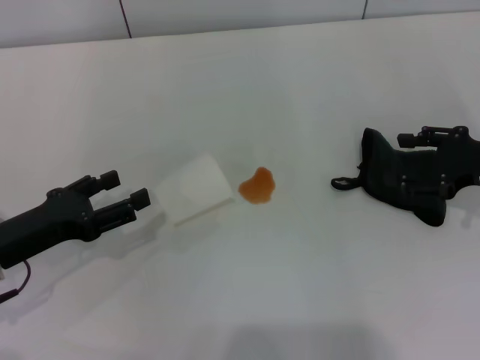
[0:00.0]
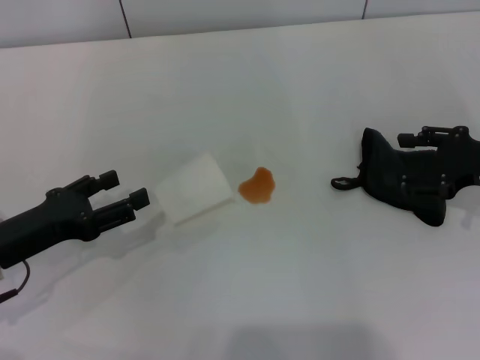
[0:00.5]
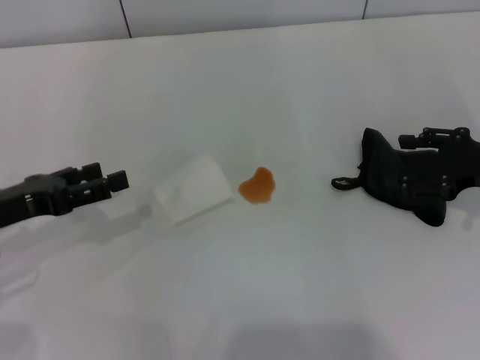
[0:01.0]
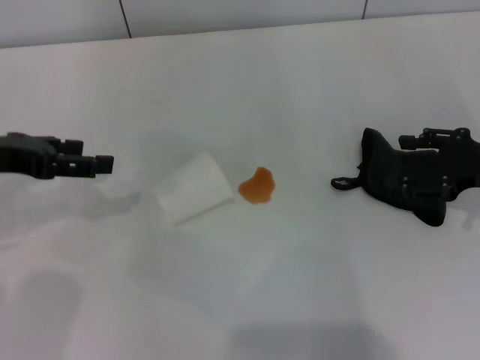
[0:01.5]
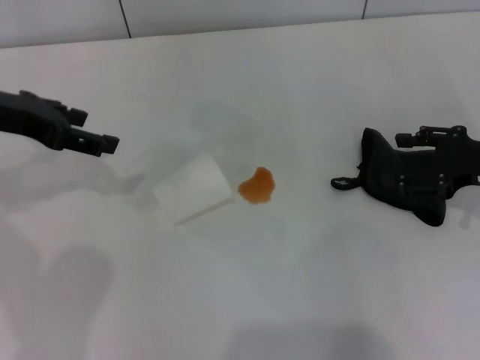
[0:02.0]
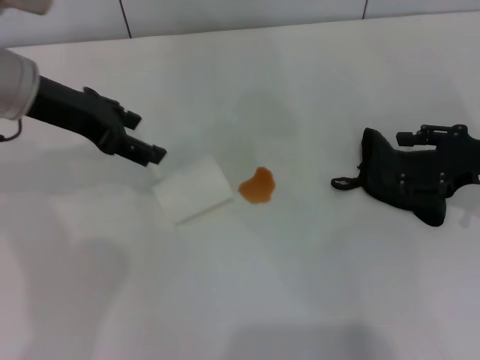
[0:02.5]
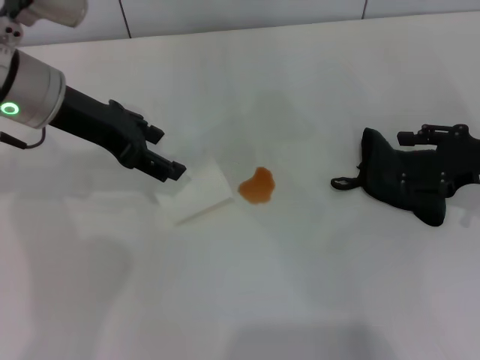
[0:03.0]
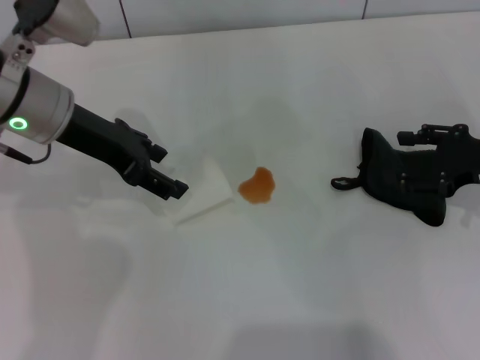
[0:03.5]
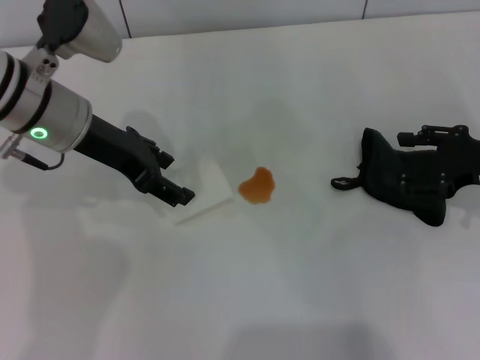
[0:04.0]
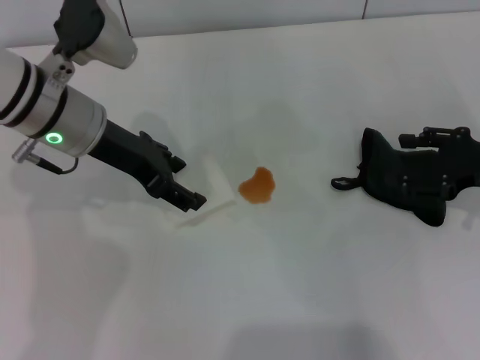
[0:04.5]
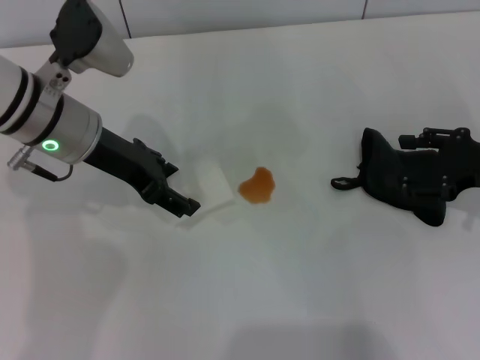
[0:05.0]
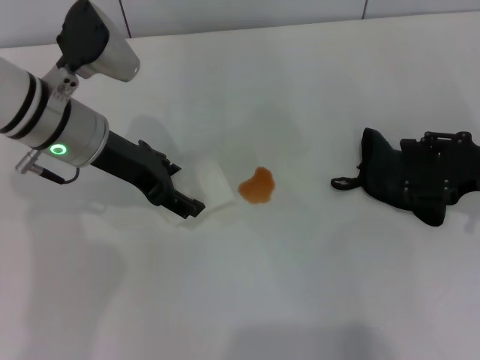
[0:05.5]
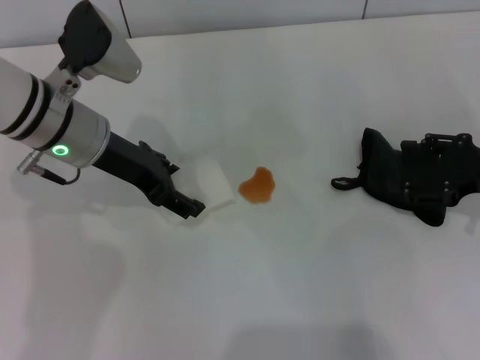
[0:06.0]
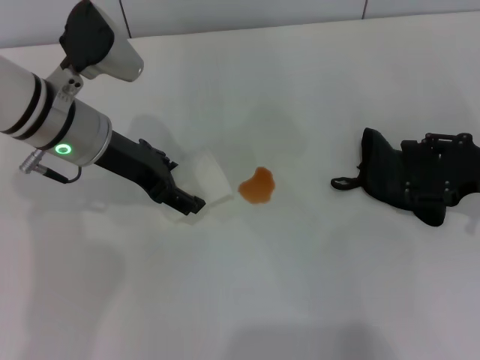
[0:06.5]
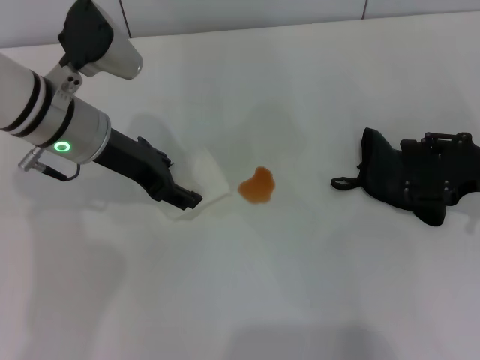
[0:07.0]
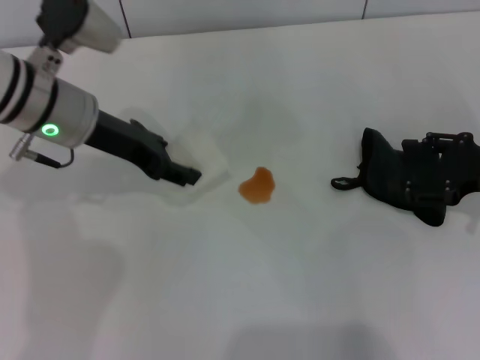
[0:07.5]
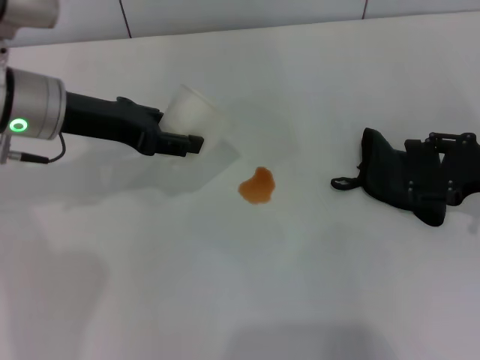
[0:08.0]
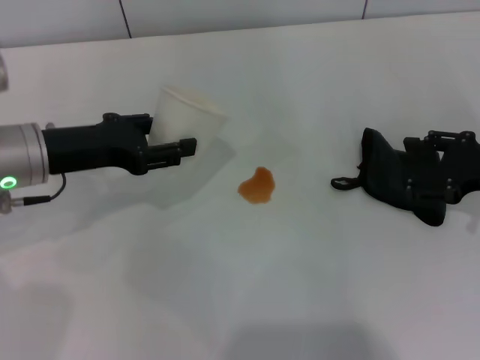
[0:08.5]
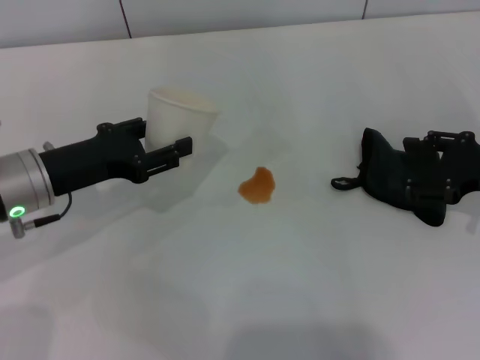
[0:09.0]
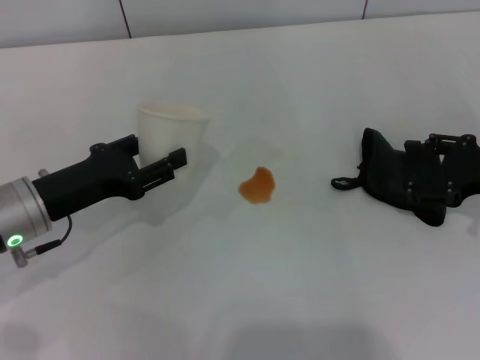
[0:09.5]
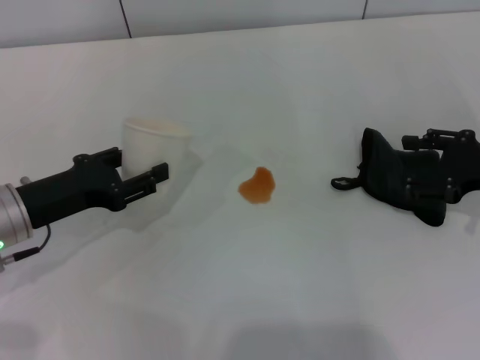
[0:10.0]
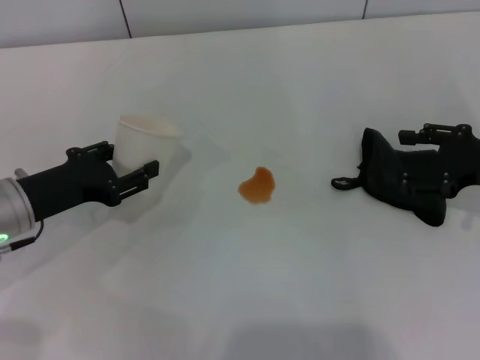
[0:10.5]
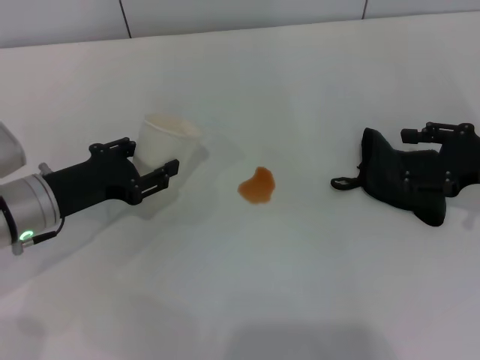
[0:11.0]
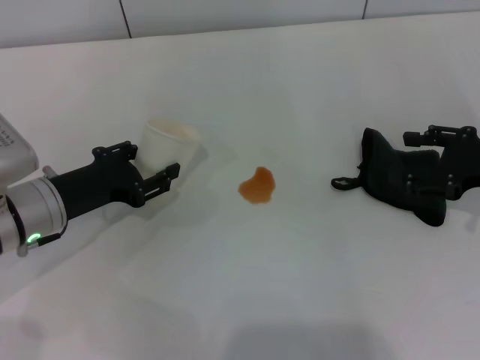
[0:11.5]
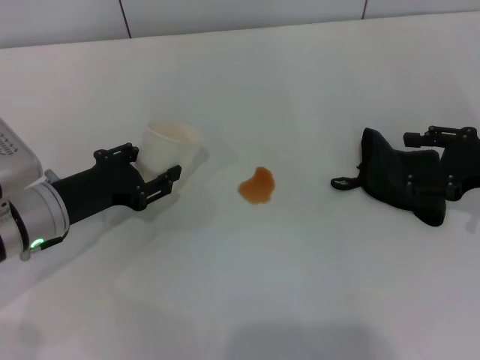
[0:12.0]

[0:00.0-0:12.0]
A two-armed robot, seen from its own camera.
Step, 0:00.0 to 0:07.0: Grasp the paper cup with the left gripper.
0:00.0 to 0:02.0: The left gripper shifts some 20 cm upward and forward.
0:02.0 to 0:04.0: The left gripper heads to the right, covering roughly 10 cm.
0:04.0 to 0:06.0: The grippers move only a little.
0:06.0 to 0:08.0: The left gripper closes up.
0:08.0 to 0:10.0: The left gripper moves downward, backward and to the left, roughly 15 cm.
0:10.0 to 0:12.0: The grippers make only small movements.

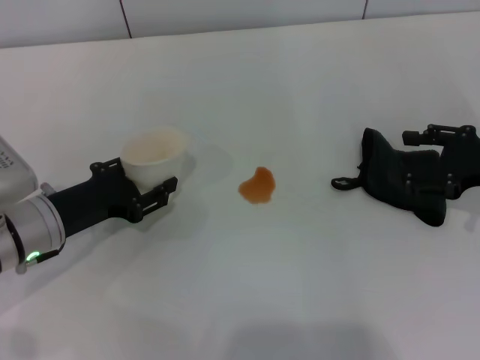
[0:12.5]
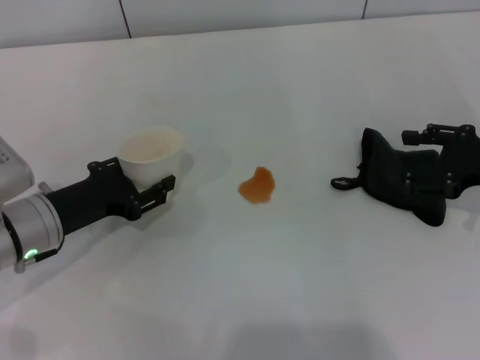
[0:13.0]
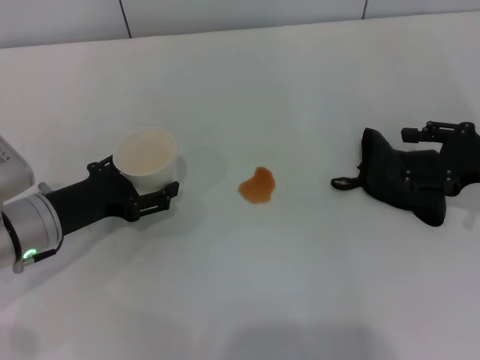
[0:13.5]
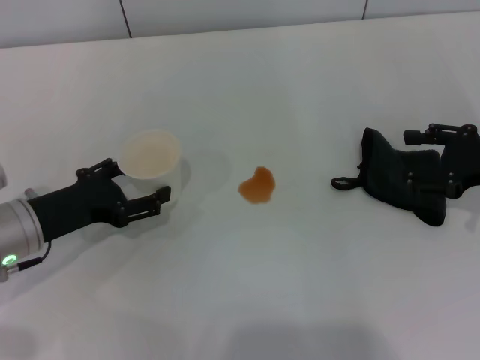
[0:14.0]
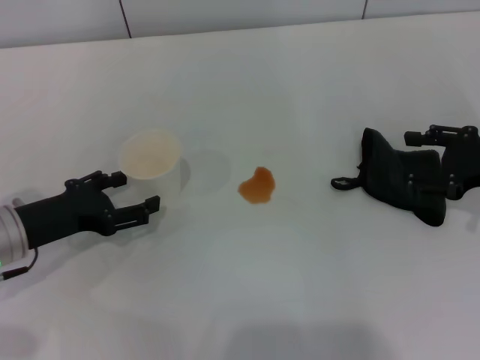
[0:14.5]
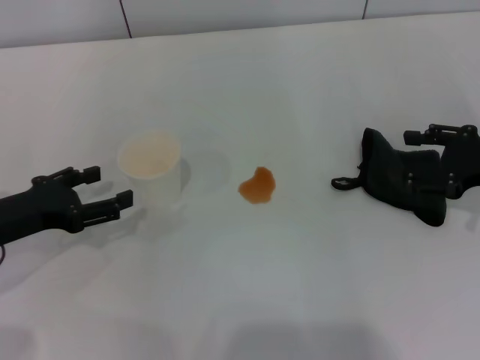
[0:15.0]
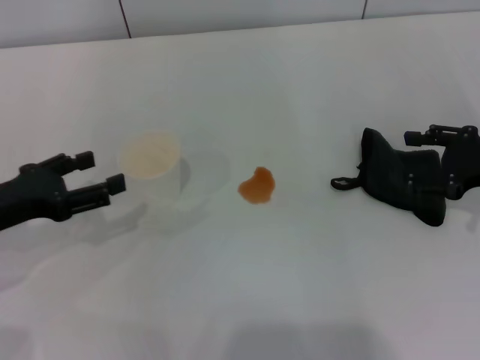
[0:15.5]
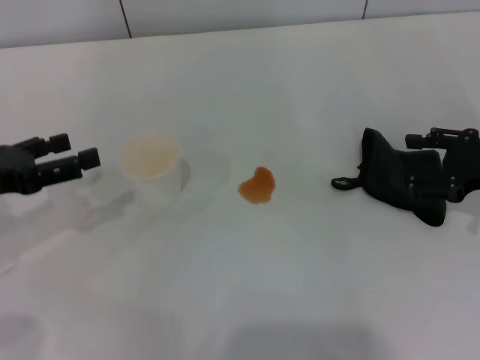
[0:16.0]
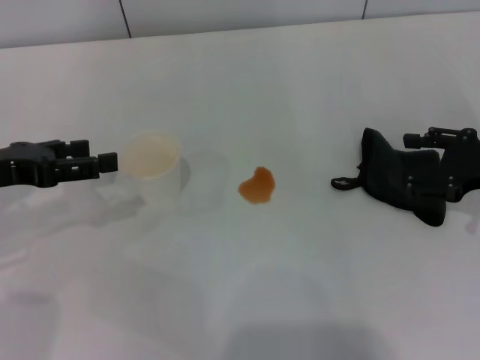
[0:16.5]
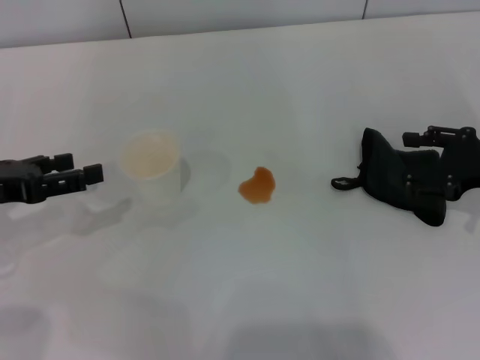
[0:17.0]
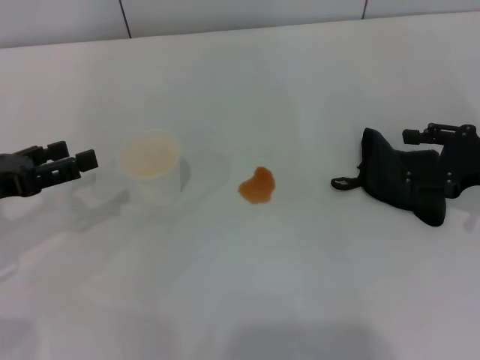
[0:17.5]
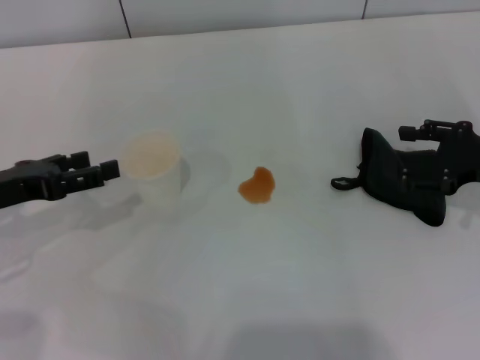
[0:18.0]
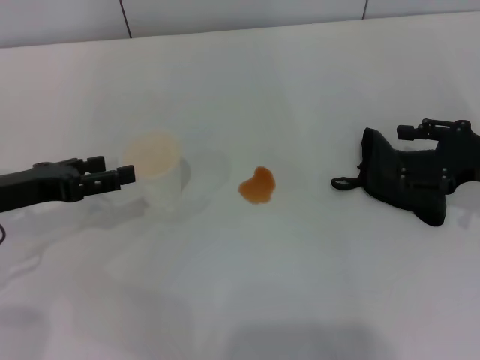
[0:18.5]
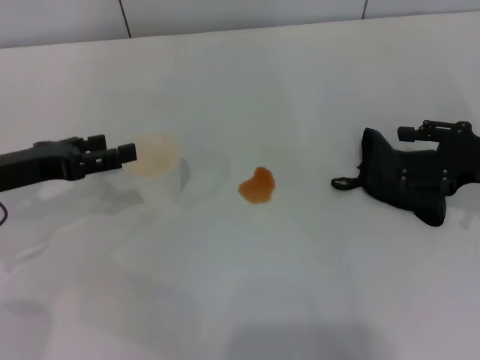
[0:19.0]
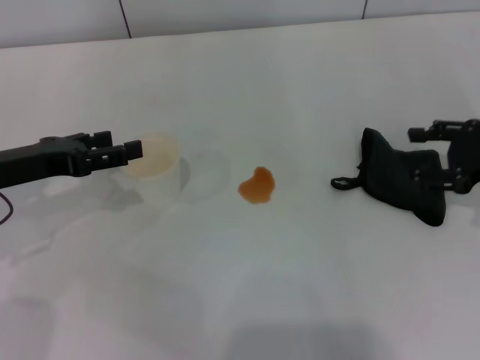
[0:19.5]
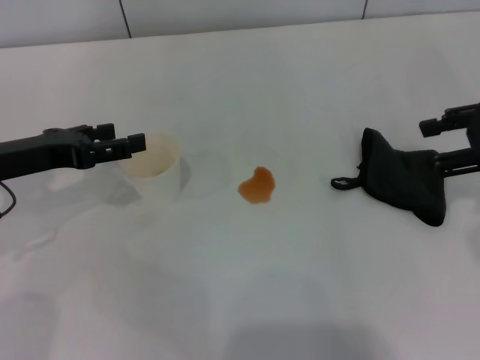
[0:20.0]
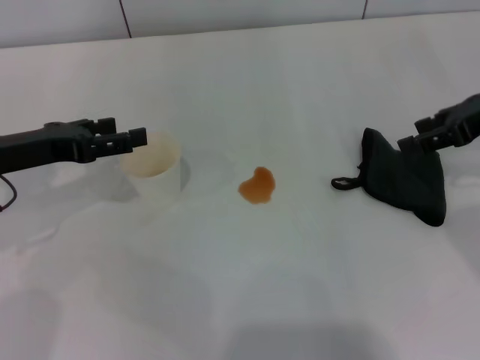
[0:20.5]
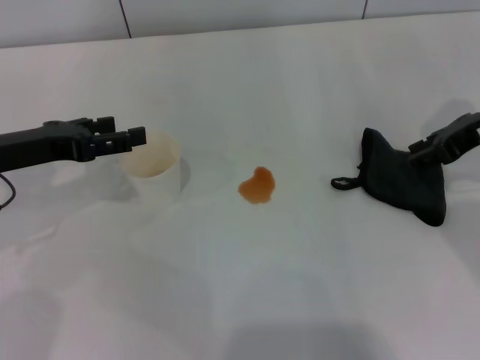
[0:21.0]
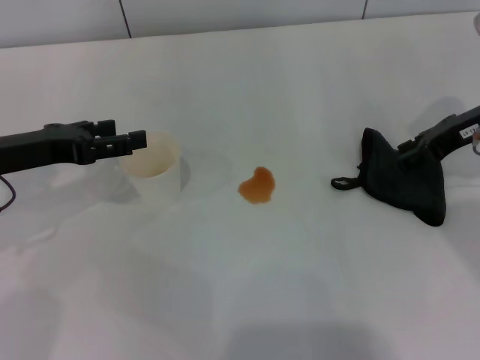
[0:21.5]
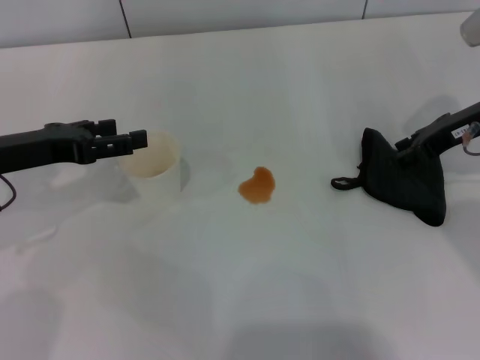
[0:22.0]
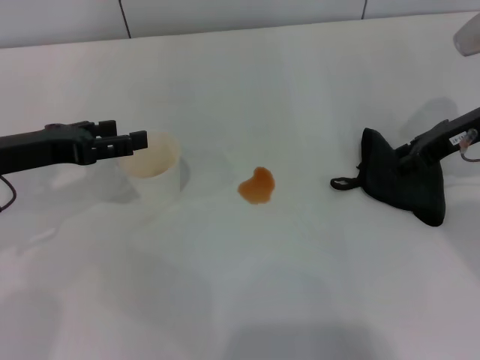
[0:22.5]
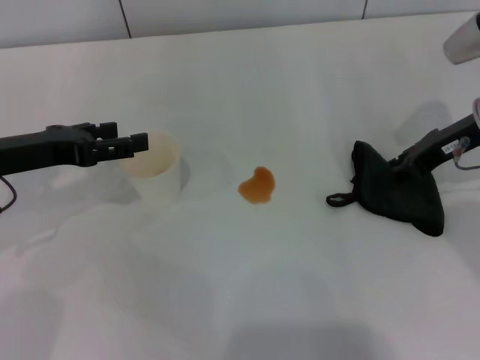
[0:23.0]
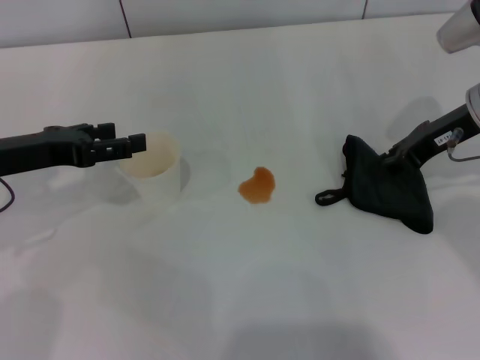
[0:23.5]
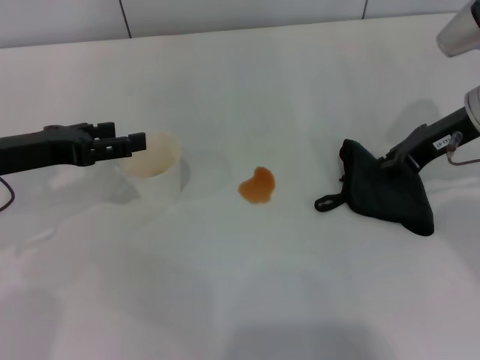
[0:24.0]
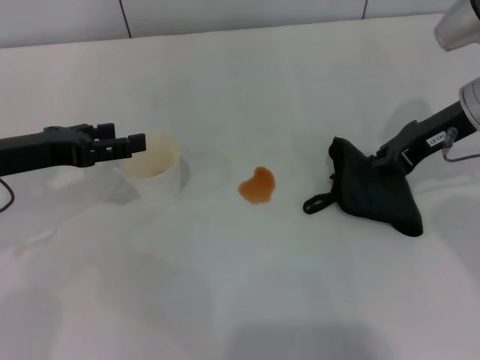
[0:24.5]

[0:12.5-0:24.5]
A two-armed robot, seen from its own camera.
Step, 0:12.5 to 0:14.5: Stand the paper cup upright with the left gripper.
Step, 0:15.0 to 0:23.0: Grasp the rag with the right gripper.
0:12.5 to 0:14.5: The left gripper opens up.
0:14.5 to 0:16.5: The left gripper travels upward by roughly 10 cm.
0:16.5 to 0:18.5: There are only small adjustments of the grippers.
0:18.5 to 0:20.5: The right gripper is displaced upward and forward by approximately 10 cm.
0:20.5 to 0:22.5: The right gripper ends up roughly 5 cm from where it was.
0:22.5 to 0:24.5: The right gripper closes up.

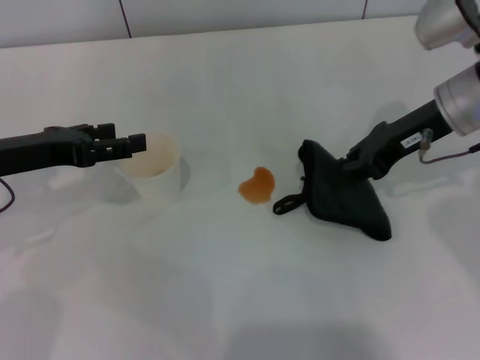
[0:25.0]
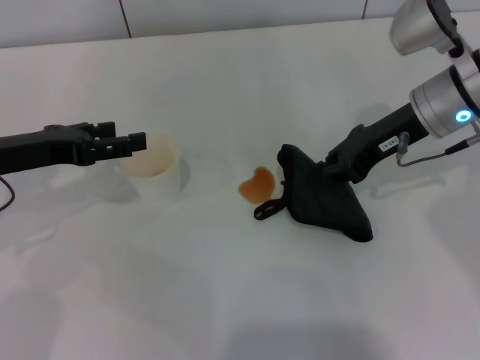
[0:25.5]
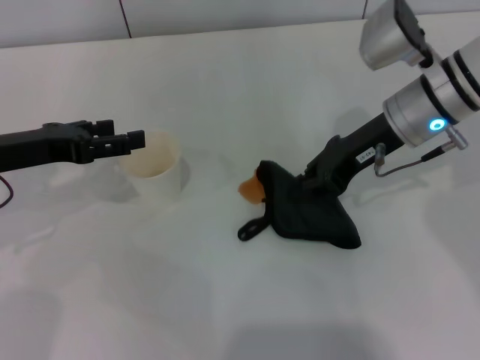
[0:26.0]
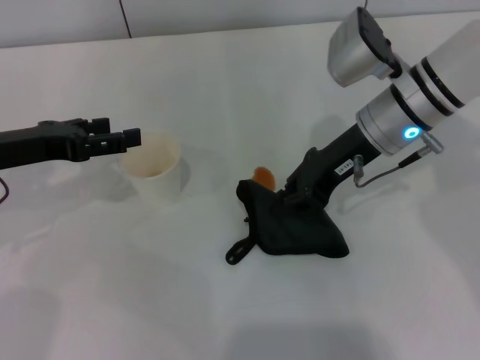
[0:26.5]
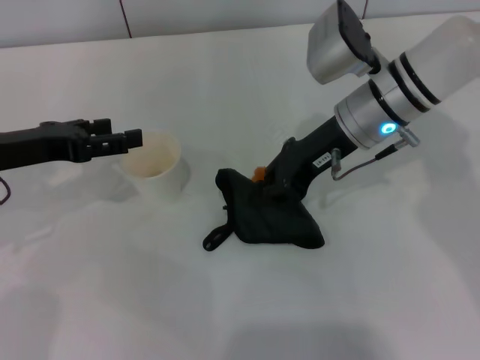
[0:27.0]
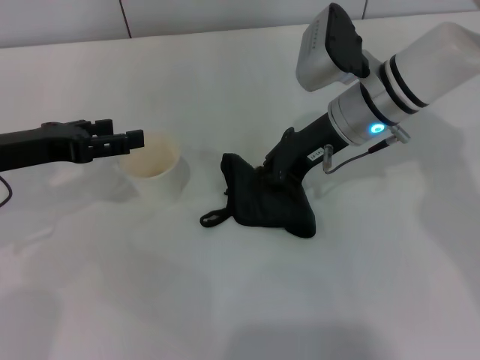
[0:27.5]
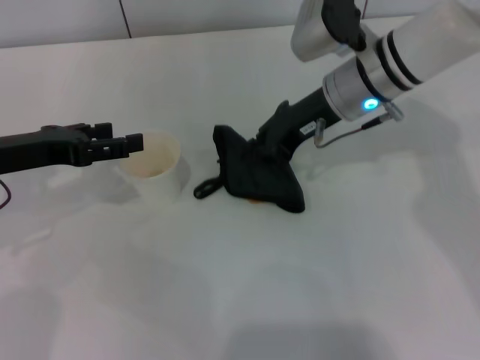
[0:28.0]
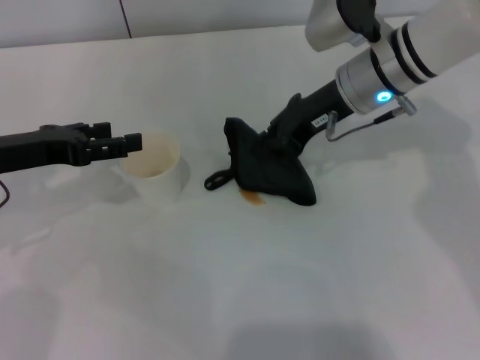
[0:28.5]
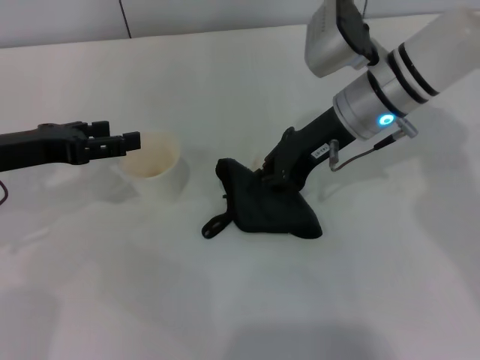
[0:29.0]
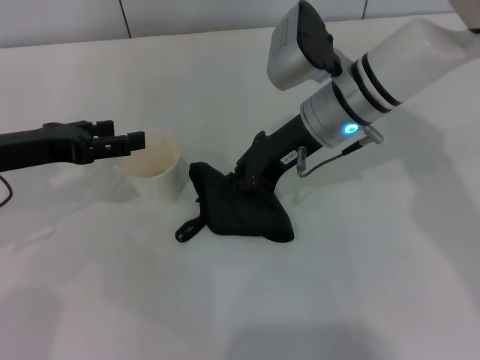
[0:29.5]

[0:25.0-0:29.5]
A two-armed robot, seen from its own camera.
0:25.0 to 0:27.0: The right gripper moves to the left, about 10 cm.
0:27.0 to 0:29.5: There are only small adjustments of the grippers.
